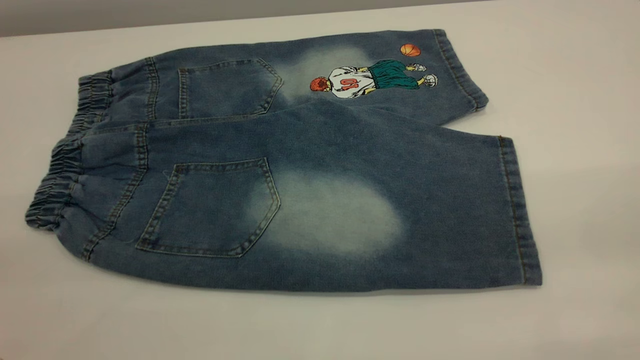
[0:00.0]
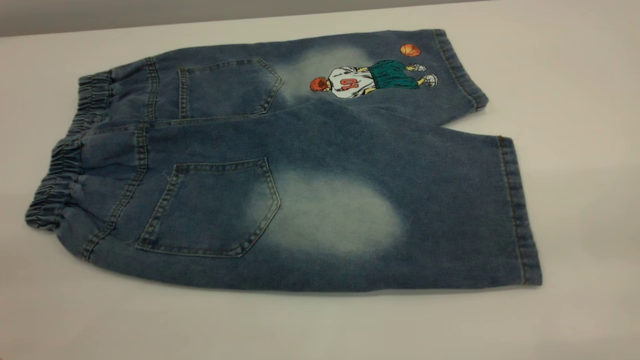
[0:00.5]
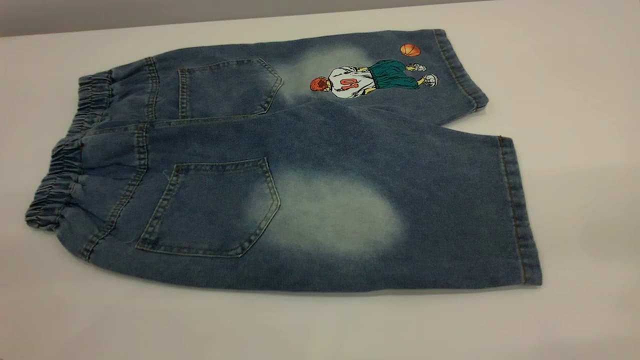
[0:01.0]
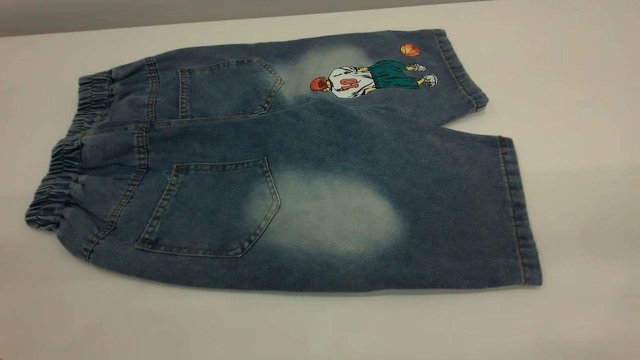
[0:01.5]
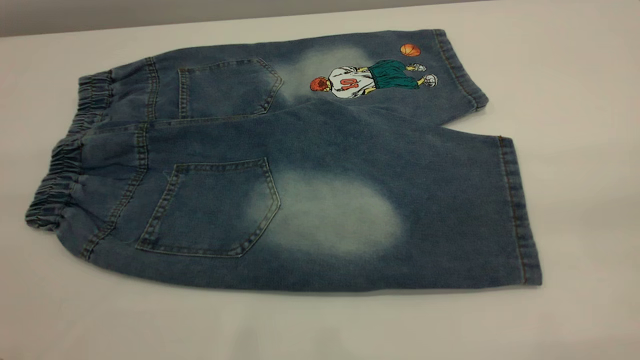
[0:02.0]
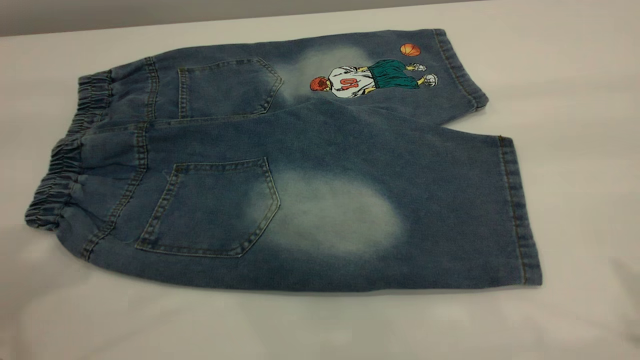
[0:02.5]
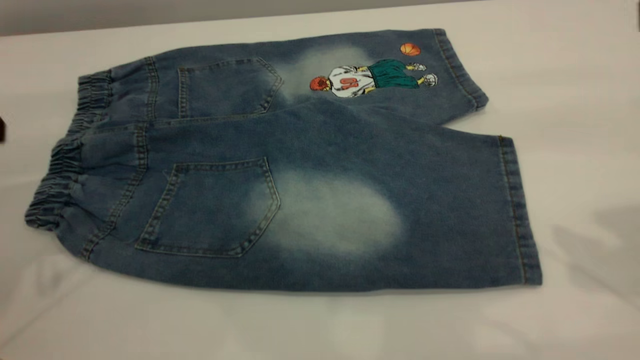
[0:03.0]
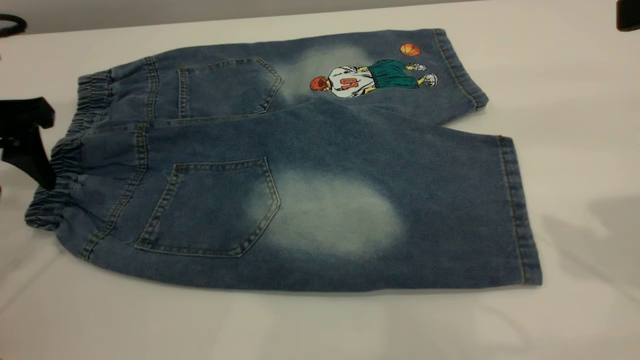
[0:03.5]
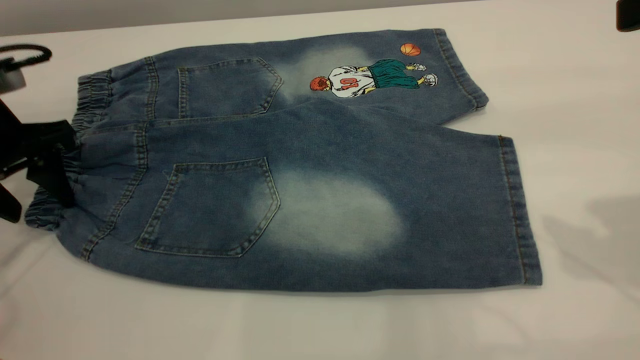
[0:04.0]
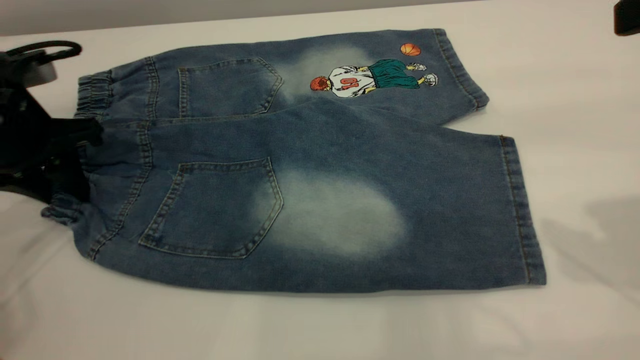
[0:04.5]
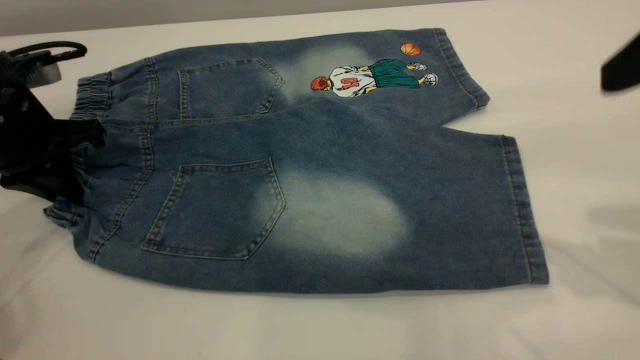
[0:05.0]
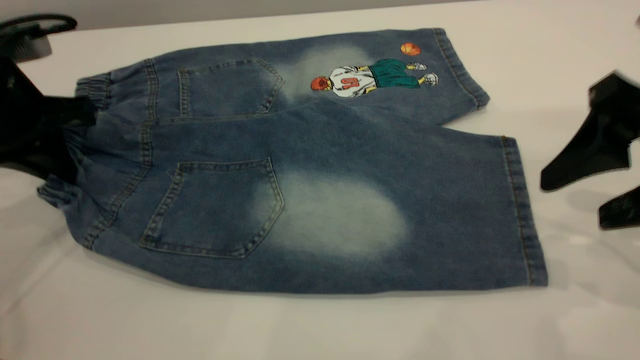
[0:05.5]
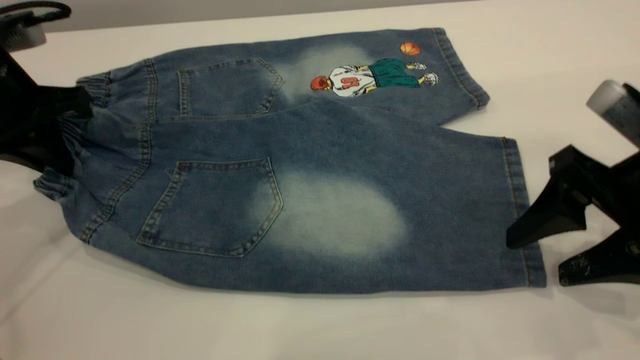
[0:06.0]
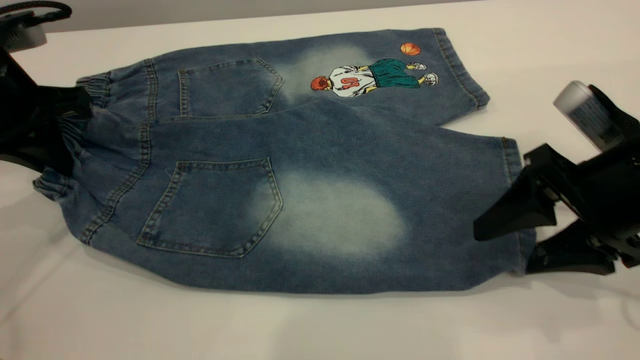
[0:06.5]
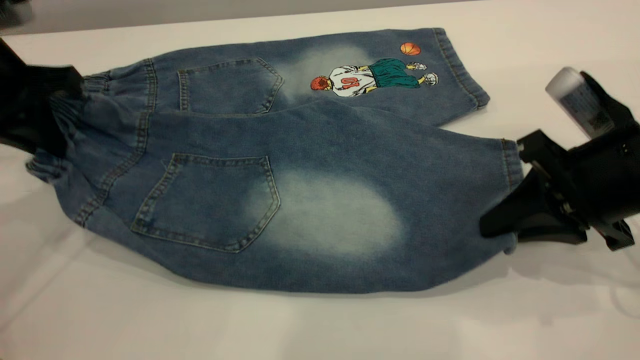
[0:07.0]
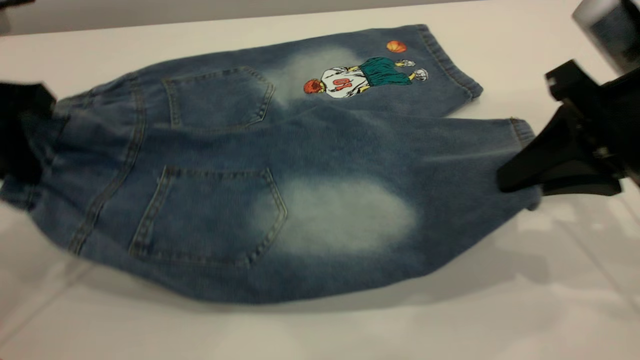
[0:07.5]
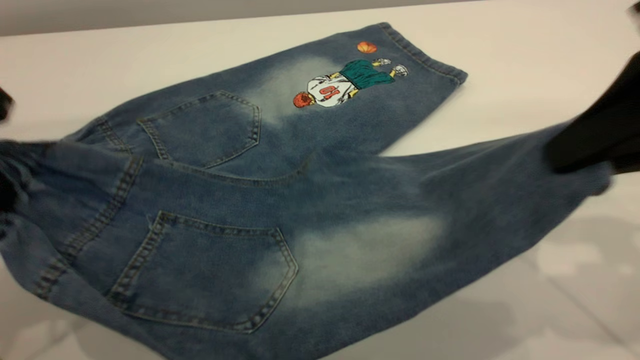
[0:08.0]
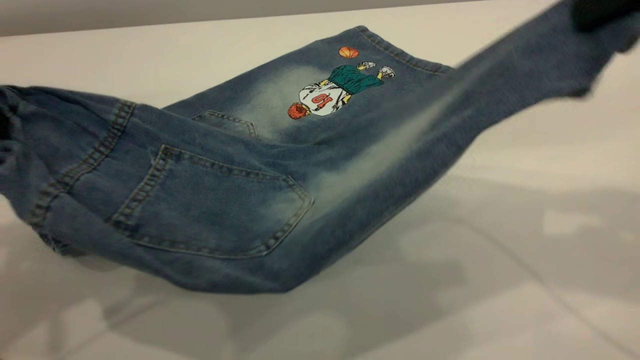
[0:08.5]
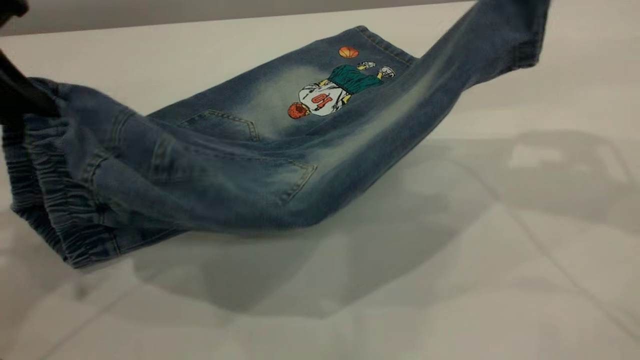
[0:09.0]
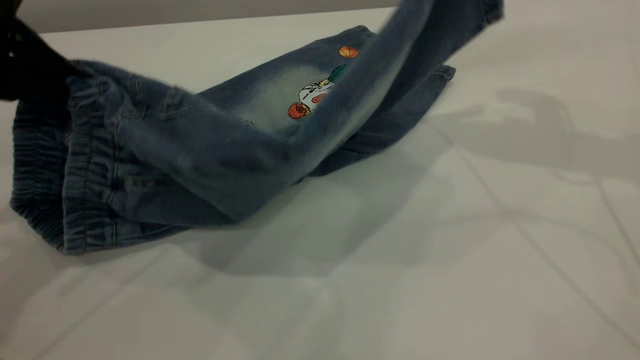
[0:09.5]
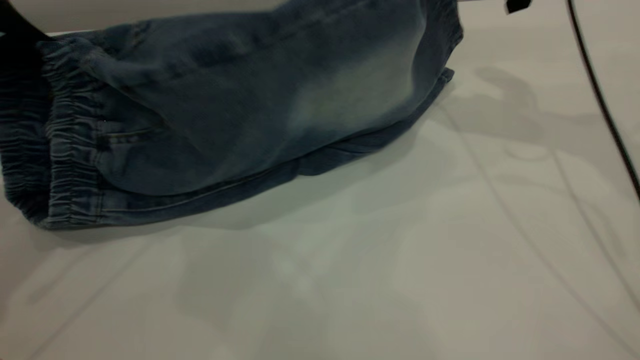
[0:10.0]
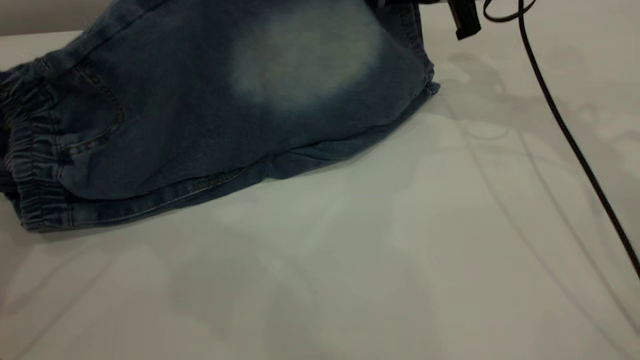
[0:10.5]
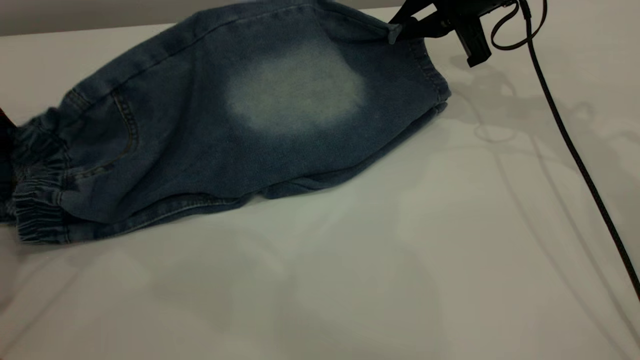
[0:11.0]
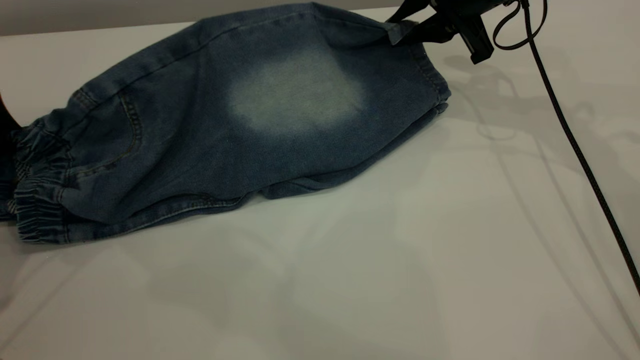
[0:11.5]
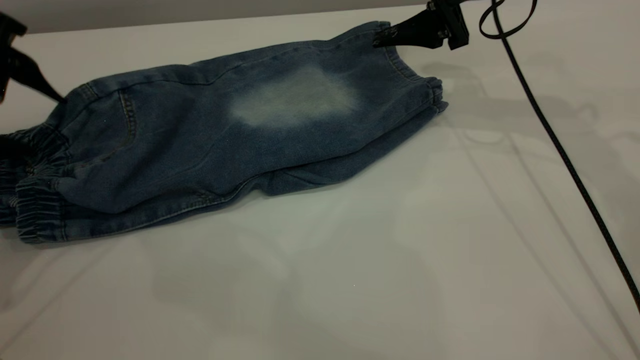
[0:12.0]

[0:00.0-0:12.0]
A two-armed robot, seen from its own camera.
0:02.0 to 0:04.0: The left gripper shifts some 35 cm forward and downward.
0:04.0 to 0:06.0: The left gripper closes its fingers. Meanwhile the right gripper heads downward, covering about 20 cm.
0:06.0 to 0:08.0: The right gripper is displaced upward by some 15 cm, and closes its fingers; the left gripper is displaced backward and upward by approximately 10 cm.
0:08.0 to 0:10.0: The left gripper heads forward, covering about 5 cm. The right gripper travels forward by roughly 25 cm.
0:10.0 to 0:12.0: The left gripper opens up. Meanwhile the right gripper changes place by about 5 cm, and opens its fingers.

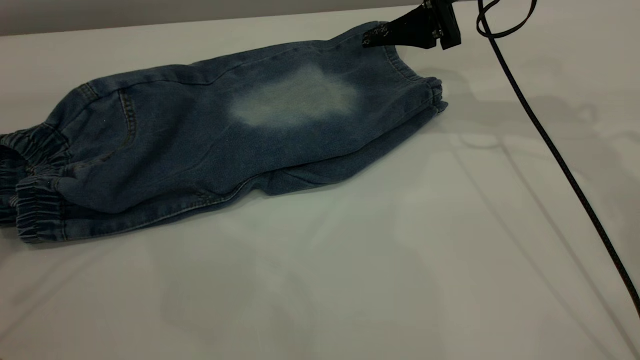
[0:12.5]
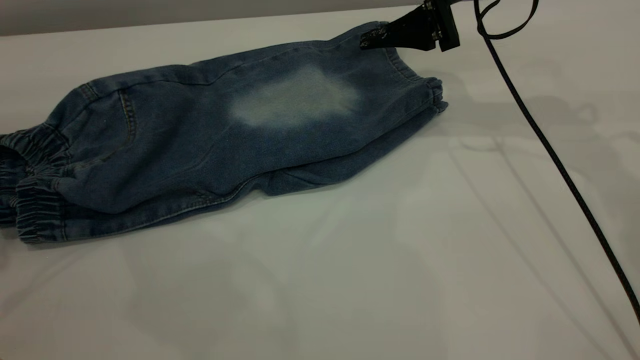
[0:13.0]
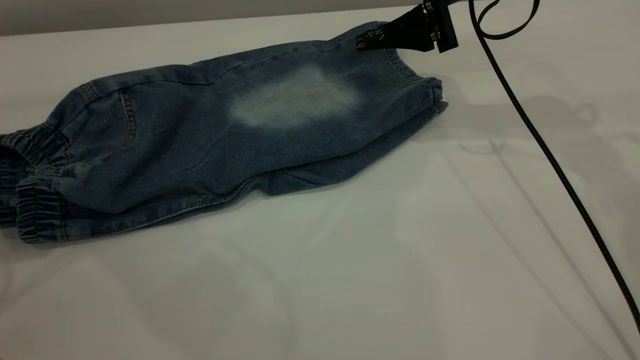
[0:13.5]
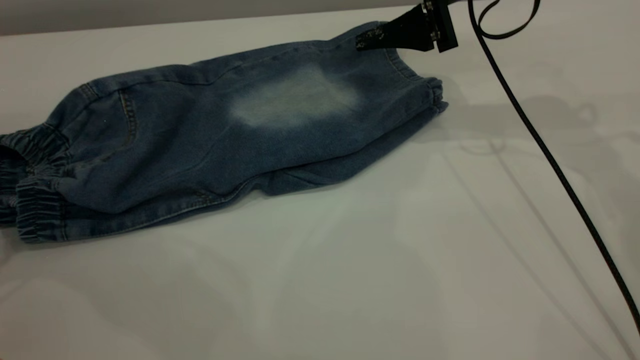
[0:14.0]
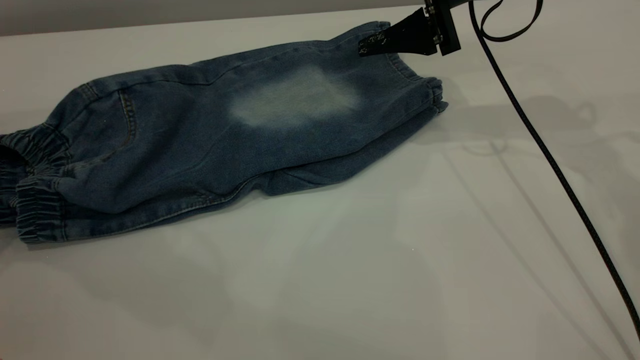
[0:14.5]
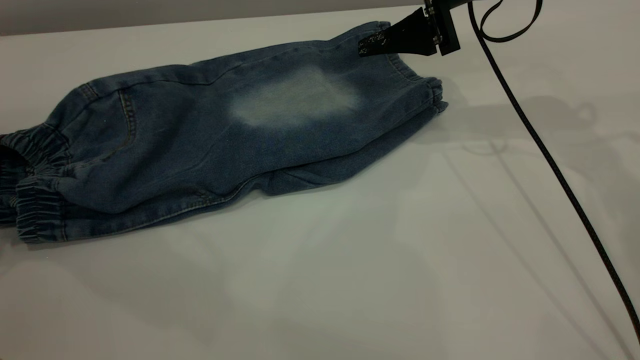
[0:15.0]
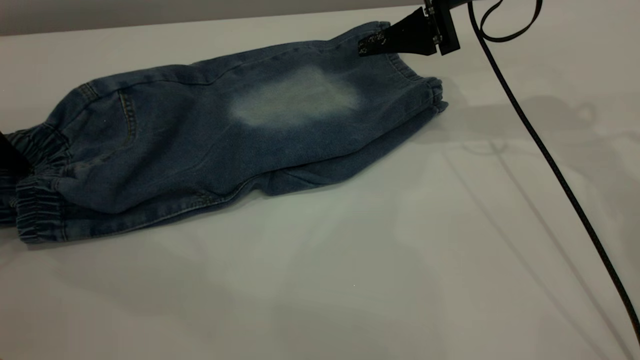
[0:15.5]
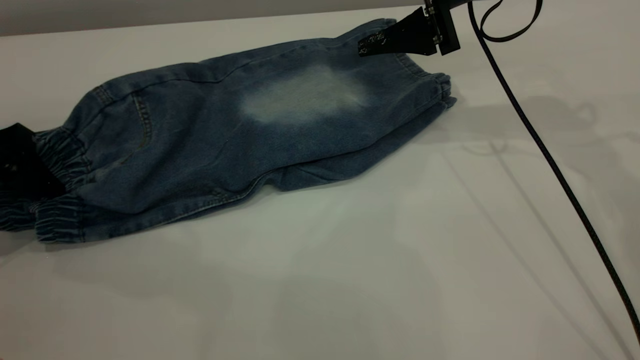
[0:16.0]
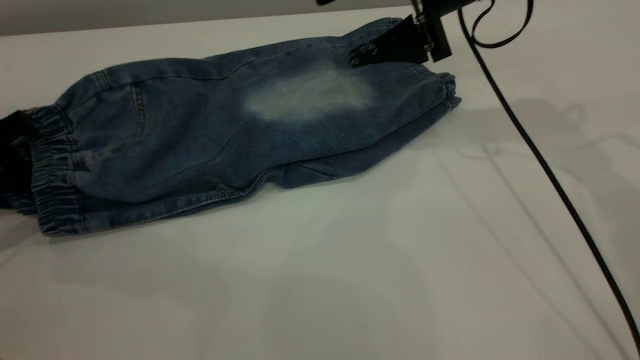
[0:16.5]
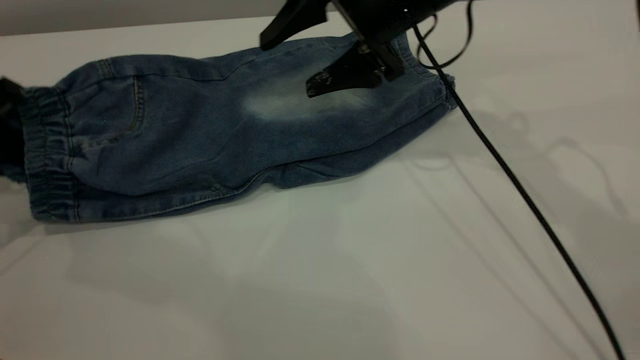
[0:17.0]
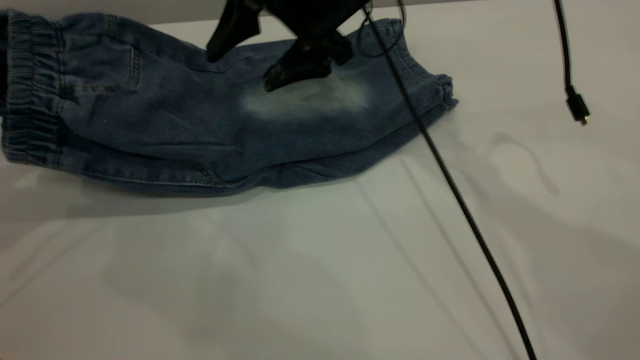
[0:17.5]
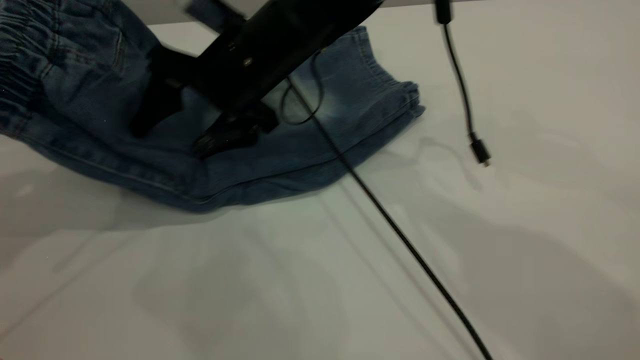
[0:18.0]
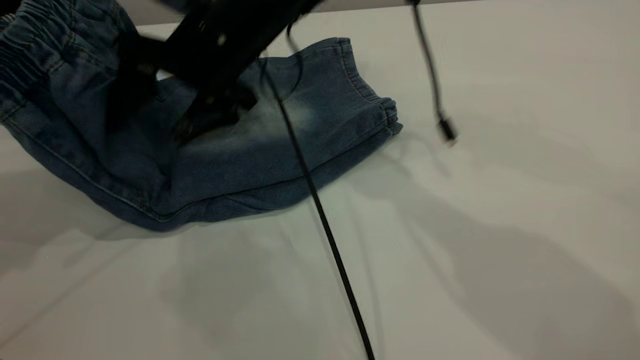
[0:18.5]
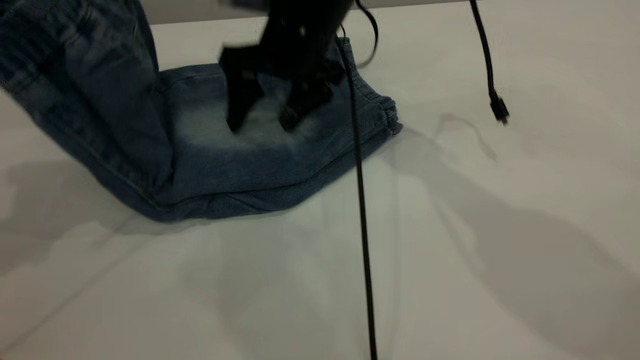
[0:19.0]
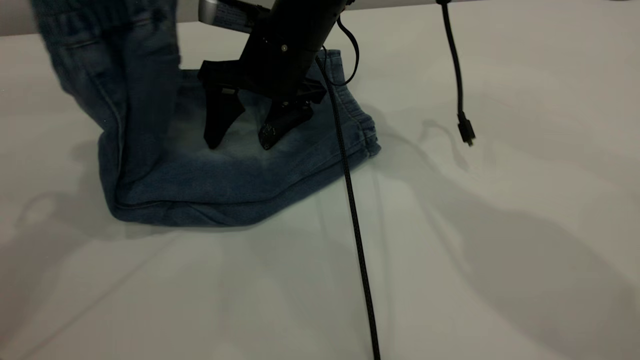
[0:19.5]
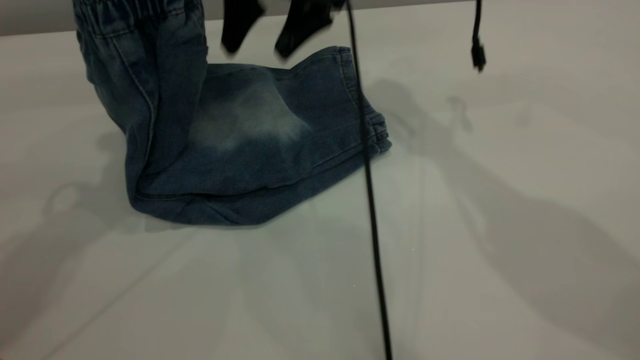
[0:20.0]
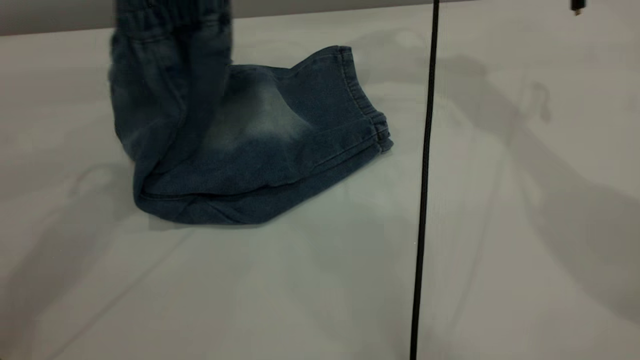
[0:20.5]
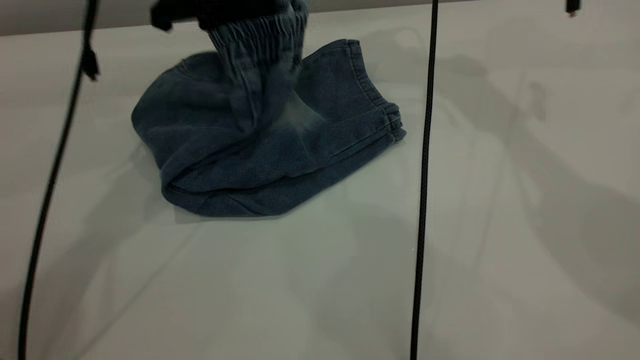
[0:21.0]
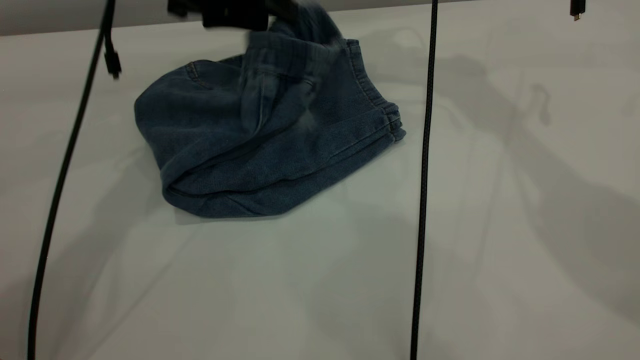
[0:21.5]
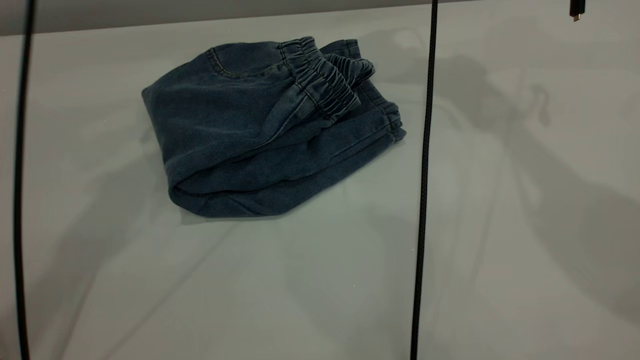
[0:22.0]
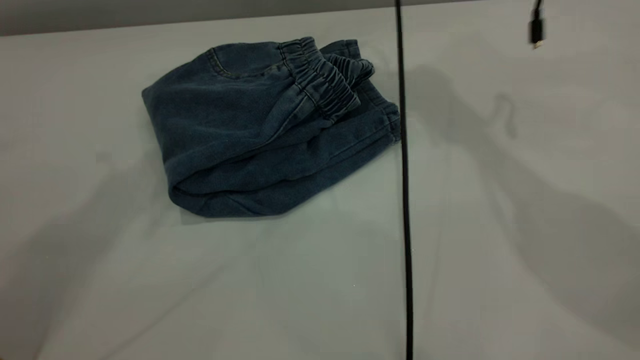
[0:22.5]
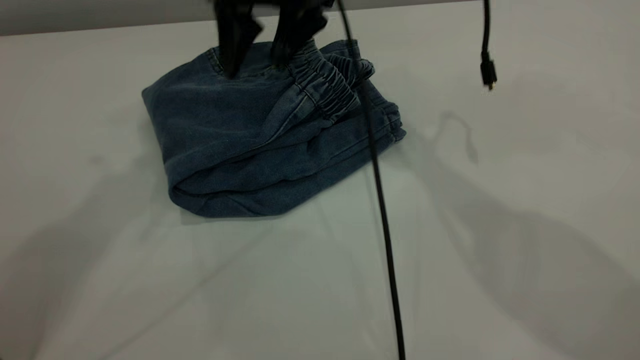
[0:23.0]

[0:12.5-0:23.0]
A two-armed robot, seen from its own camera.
Step, 0:12.5 to 0:22.0: Fold the pants from left to right.
0:14.5 to 0:16.5: The left gripper is displaced downward by about 5 cm, and closes its fingers.
0:16.5 to 0:19.0: The left gripper is displaced upward by approximately 15 cm. Meanwhile the right gripper heads to the left, covering about 15 cm.
0:19.0 to 0:21.0: The left gripper is displaced to the right, forward and downward by about 20 cm; the right gripper goes some 20 cm upward, to the right and forward.
0:21.0 to 0:23.0: The right gripper is displaced to the left, backward and downward by approximately 15 cm, while the left gripper goes roughly 25 cm upward, and opens.
